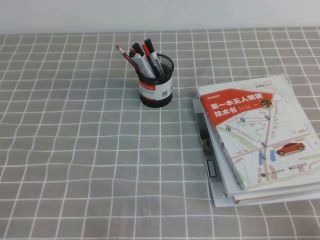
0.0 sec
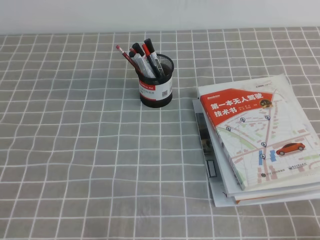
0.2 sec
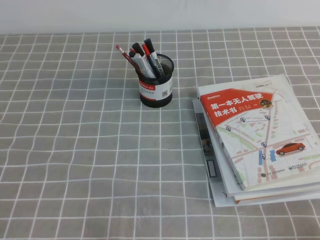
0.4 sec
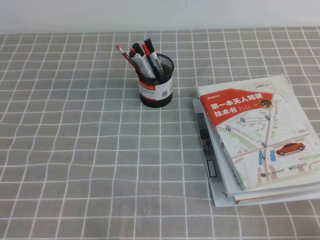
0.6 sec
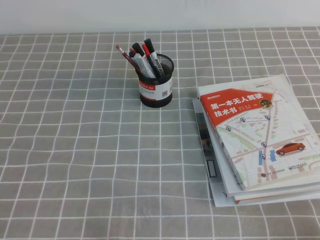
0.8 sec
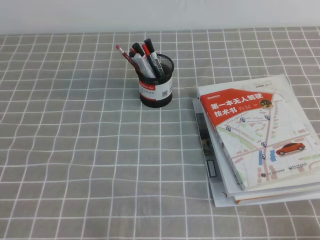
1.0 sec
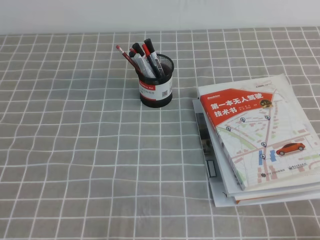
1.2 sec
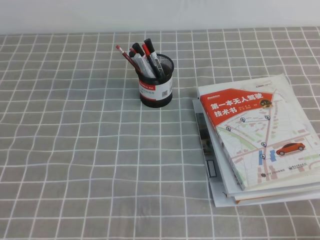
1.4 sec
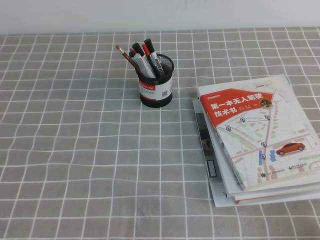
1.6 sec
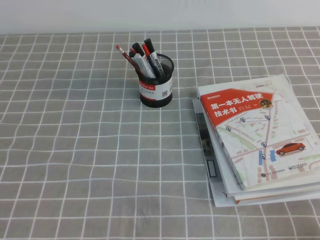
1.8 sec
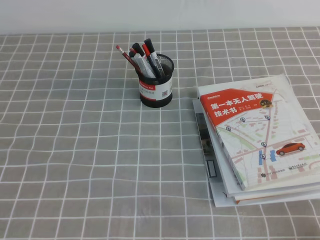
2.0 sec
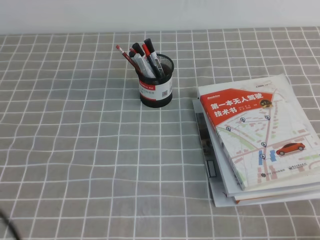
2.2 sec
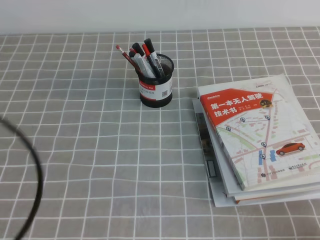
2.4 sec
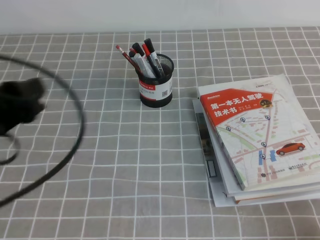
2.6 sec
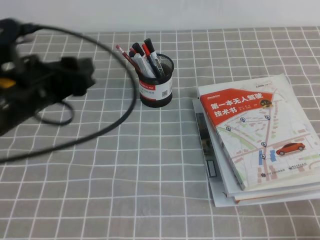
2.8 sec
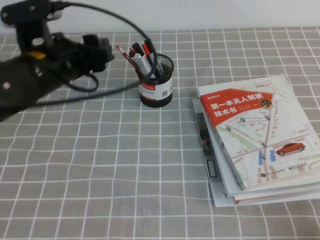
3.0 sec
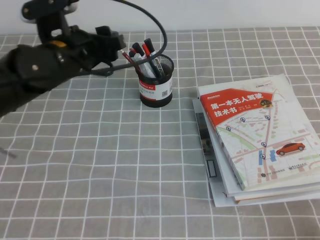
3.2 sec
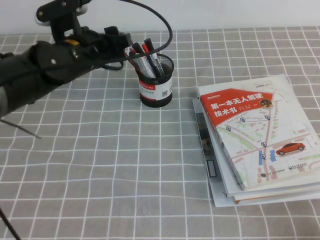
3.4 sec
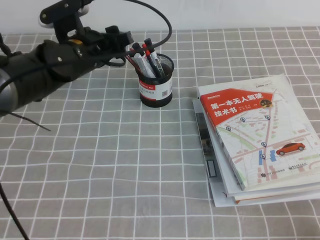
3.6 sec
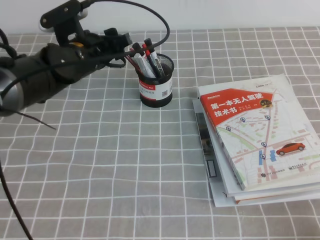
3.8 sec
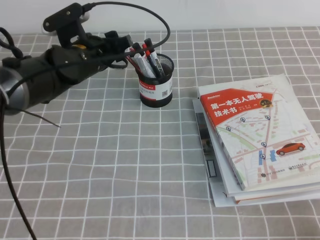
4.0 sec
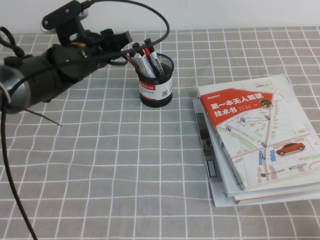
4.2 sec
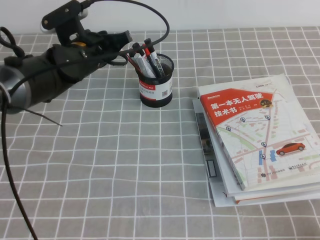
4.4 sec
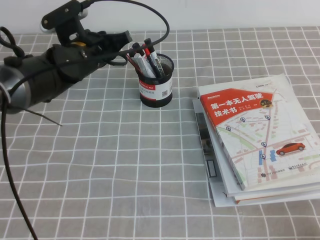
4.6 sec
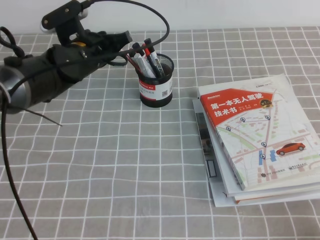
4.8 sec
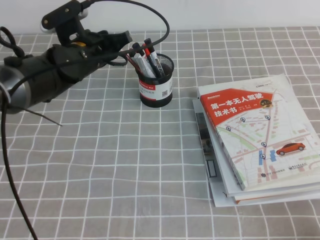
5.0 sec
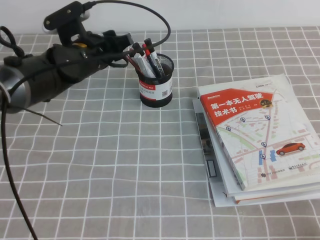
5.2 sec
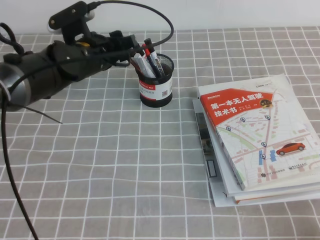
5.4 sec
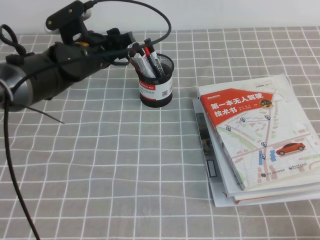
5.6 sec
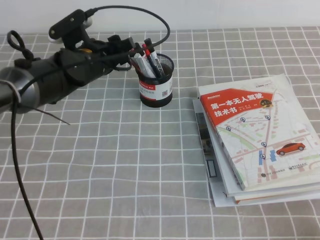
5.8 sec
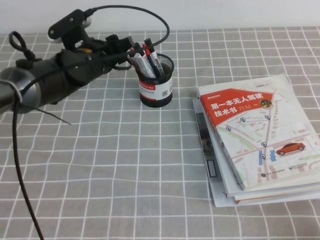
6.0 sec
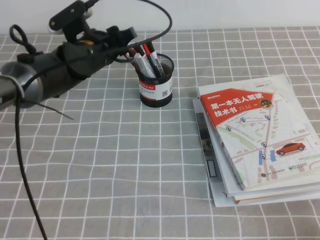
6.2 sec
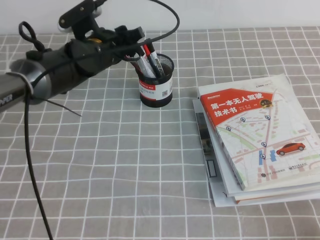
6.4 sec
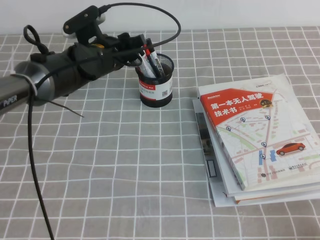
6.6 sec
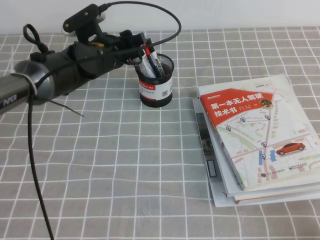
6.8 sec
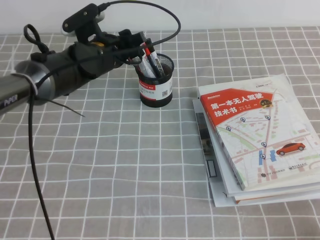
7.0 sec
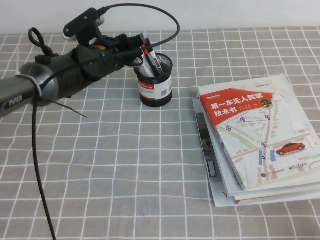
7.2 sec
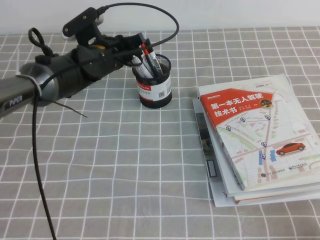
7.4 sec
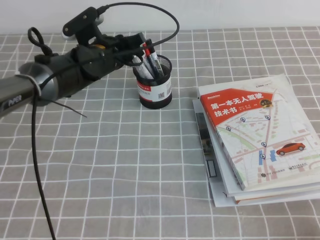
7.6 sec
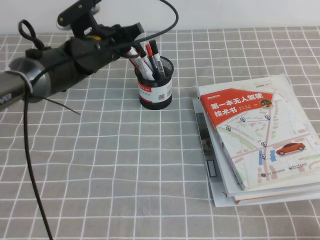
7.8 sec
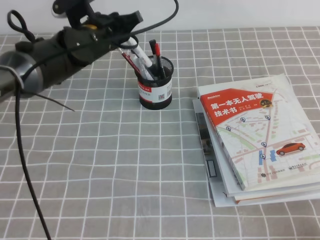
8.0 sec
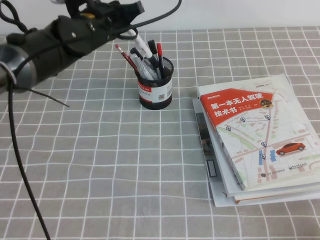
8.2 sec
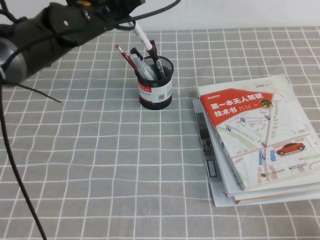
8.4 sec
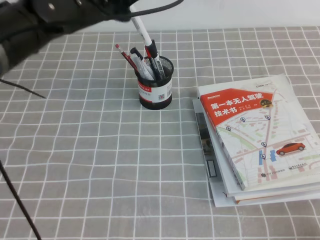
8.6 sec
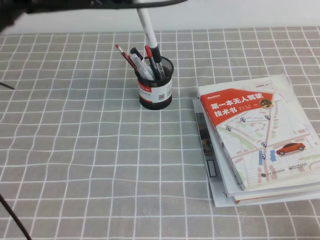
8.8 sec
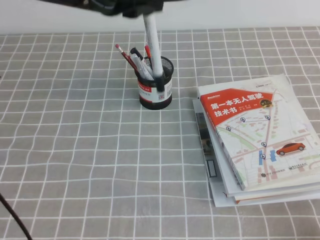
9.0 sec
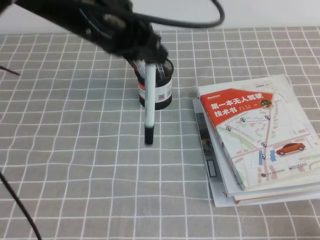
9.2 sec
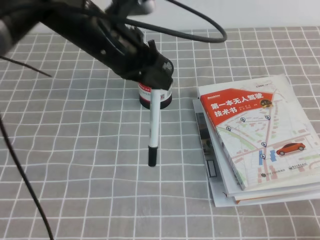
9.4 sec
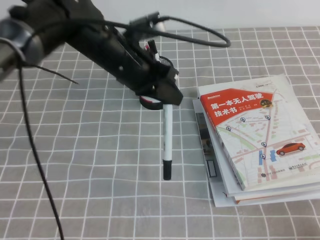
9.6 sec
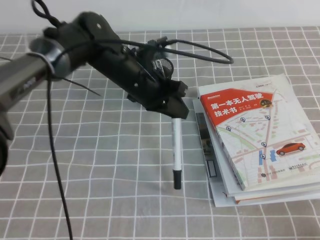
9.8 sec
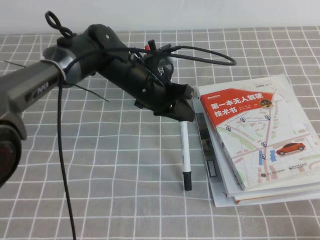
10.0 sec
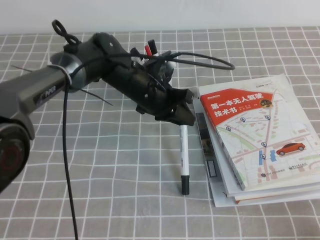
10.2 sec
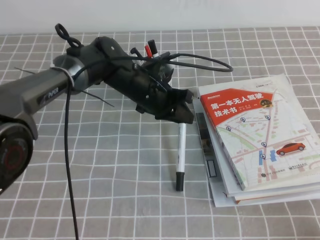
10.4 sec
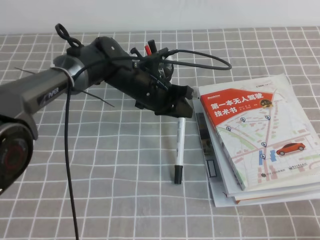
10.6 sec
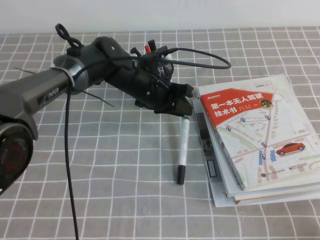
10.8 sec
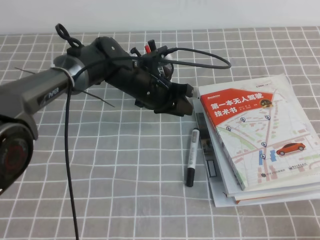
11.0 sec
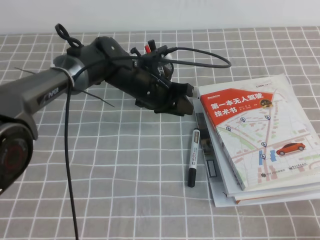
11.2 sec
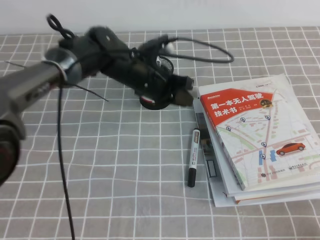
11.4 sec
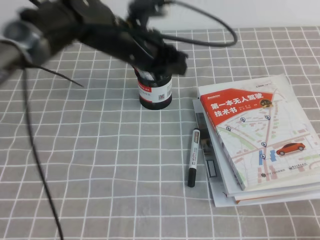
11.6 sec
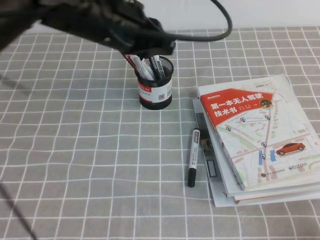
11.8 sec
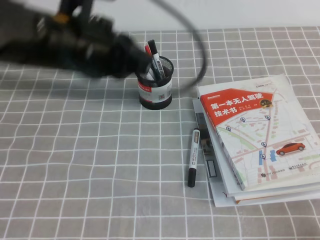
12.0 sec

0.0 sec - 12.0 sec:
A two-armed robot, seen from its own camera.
1.6 sec - 3.0 sec: The left gripper is displaced forward, upward and to the right by roughly 30 cm, and opens.
3.0 sec - 4.4 sec: The left gripper moves forward and downward, approximately 10 cm, and closes its fingers.
4.4 sec - 6.0 sec: The left gripper opens.
6.0 sec - 7.6 sec: The left gripper closes up.
7.6 sec - 9.0 sec: The left gripper moves upward and backward, approximately 20 cm.
9.0 sec - 10.4 sec: The left gripper heads downward, covering approximately 20 cm.
10.4 sec - 12.0 sec: The left gripper travels upward, backward and to the left by roughly 25 cm.

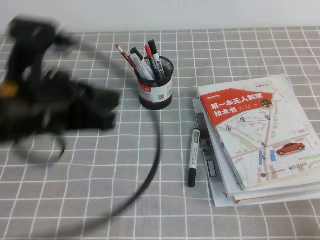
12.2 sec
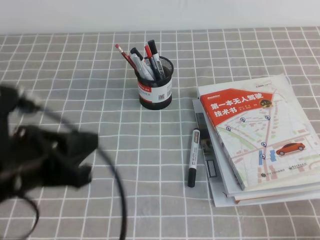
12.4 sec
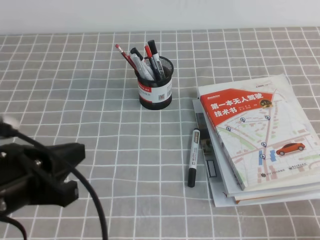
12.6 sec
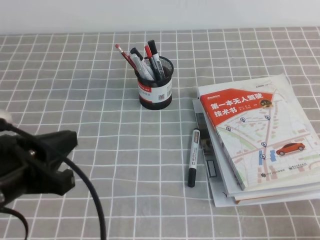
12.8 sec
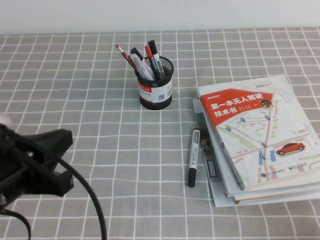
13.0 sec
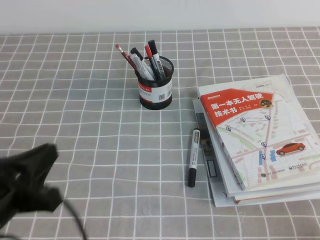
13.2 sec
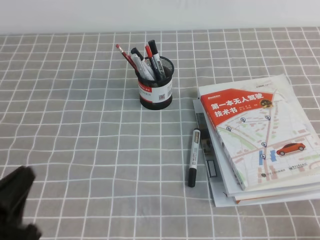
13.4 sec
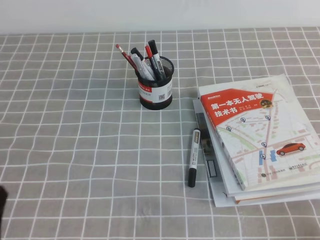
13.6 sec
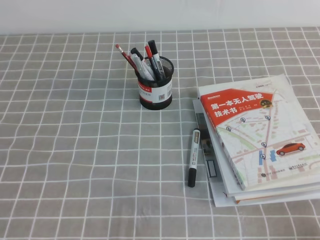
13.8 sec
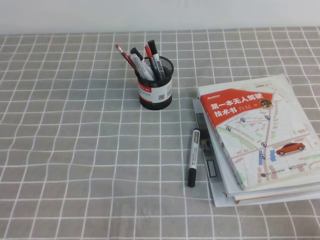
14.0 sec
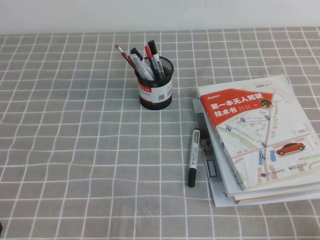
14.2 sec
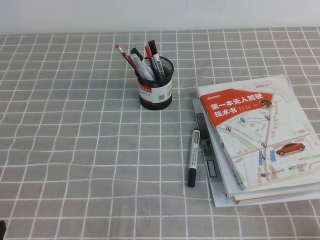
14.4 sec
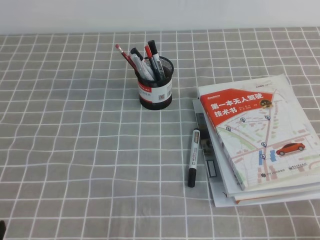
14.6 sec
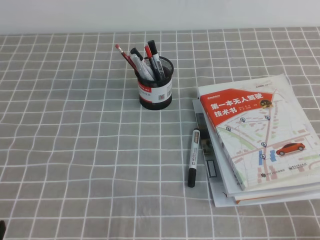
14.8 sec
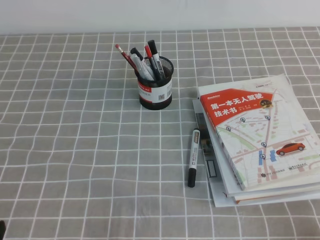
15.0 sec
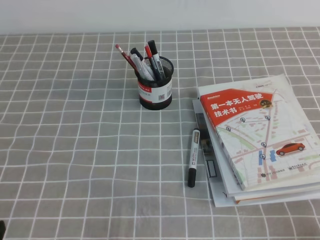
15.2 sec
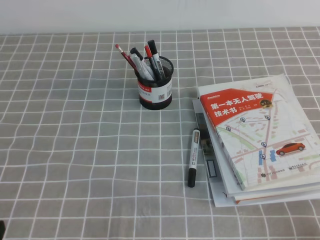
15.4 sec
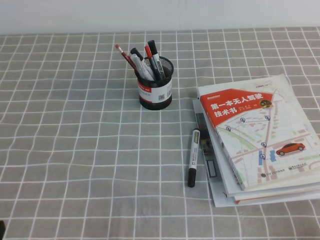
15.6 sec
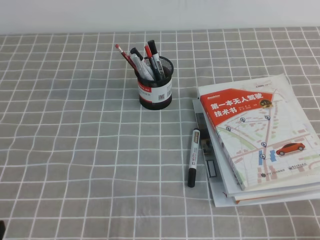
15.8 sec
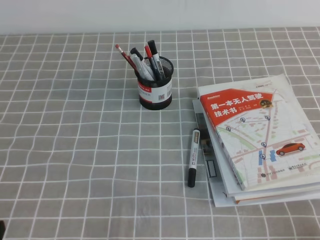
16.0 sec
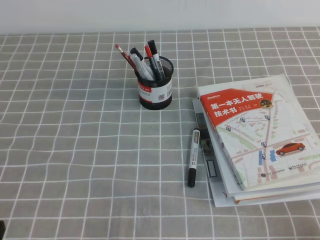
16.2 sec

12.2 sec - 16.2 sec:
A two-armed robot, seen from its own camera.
Step, 12.2 sec - 16.2 sec: Pick up the pen from the pen holder.
12.2 sec - 13.6 sec: The left gripper goes some 25 cm downward, backward and to the left.
13.6 sec - 14.8 sec: The left gripper changes place by roughly 5 cm.
14.8 sec - 16.2 sec: Neither gripper changes place.

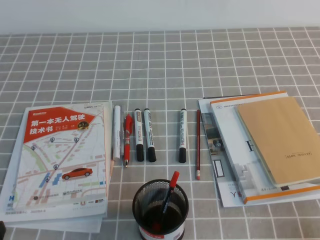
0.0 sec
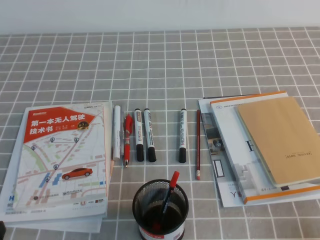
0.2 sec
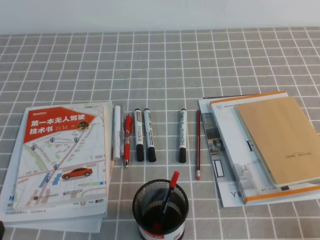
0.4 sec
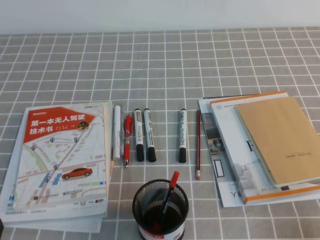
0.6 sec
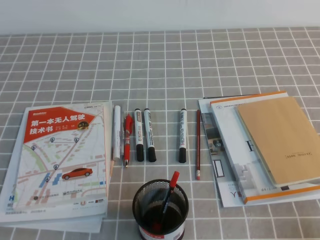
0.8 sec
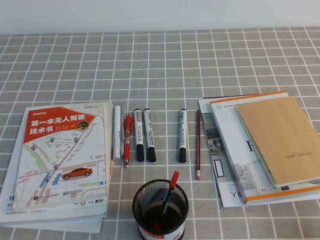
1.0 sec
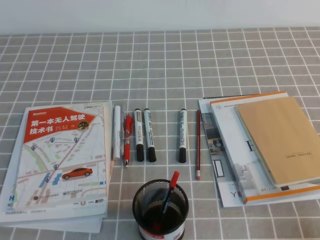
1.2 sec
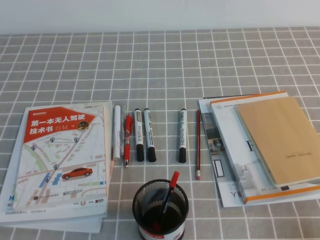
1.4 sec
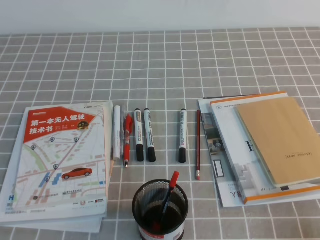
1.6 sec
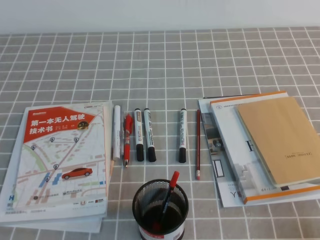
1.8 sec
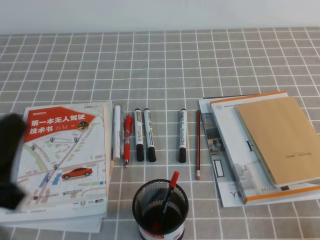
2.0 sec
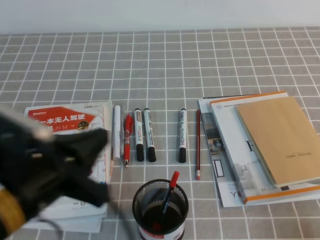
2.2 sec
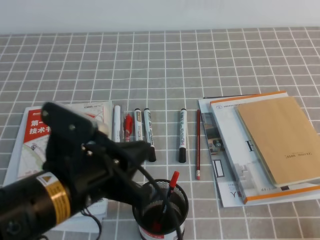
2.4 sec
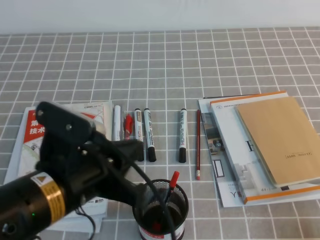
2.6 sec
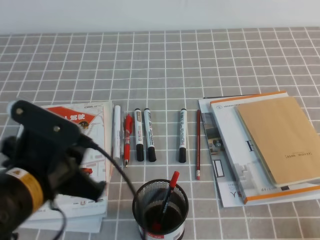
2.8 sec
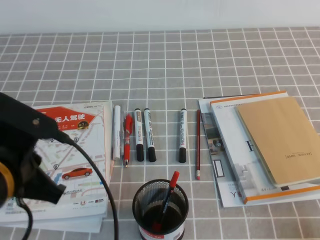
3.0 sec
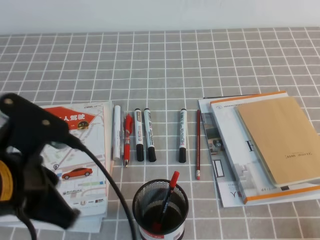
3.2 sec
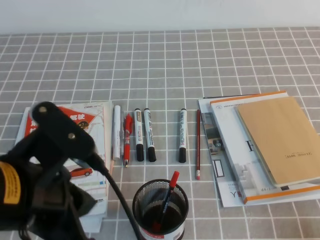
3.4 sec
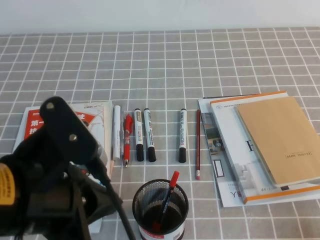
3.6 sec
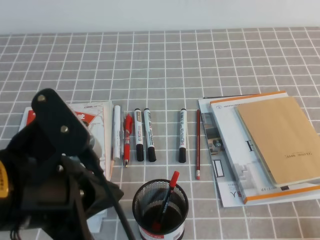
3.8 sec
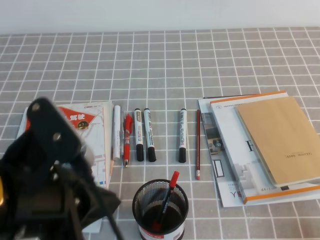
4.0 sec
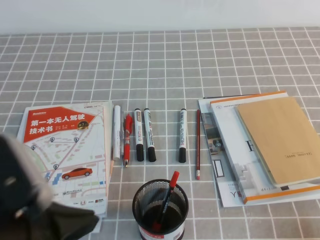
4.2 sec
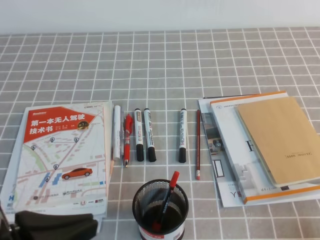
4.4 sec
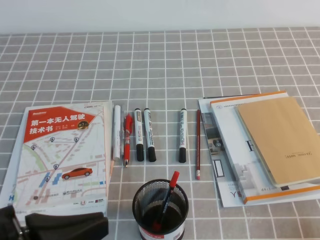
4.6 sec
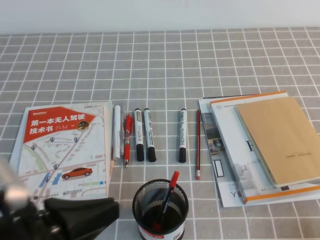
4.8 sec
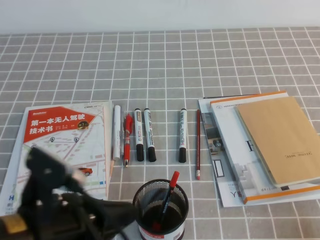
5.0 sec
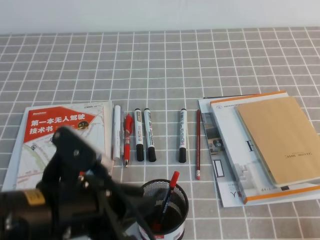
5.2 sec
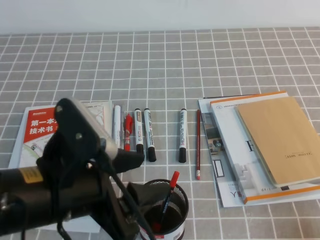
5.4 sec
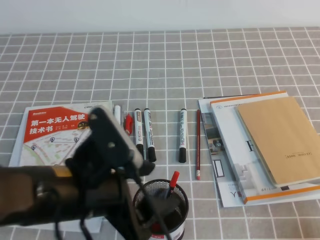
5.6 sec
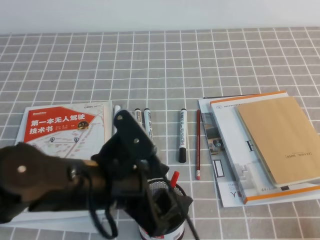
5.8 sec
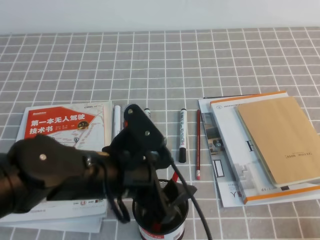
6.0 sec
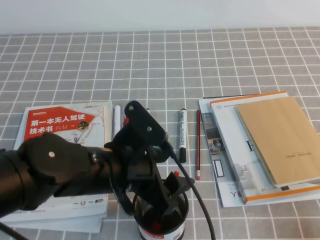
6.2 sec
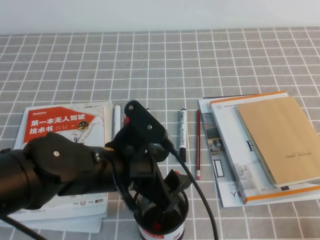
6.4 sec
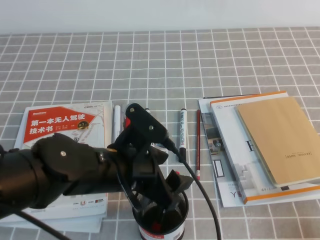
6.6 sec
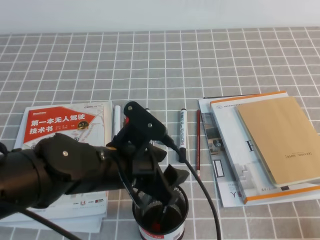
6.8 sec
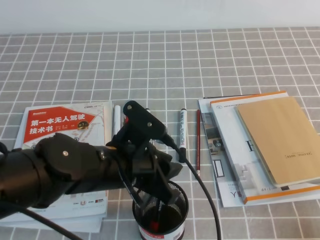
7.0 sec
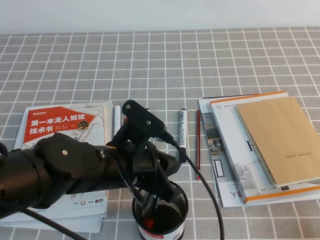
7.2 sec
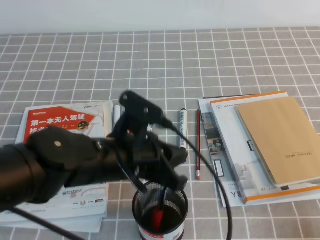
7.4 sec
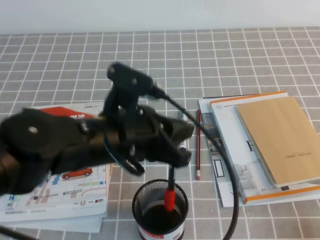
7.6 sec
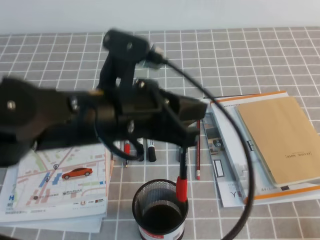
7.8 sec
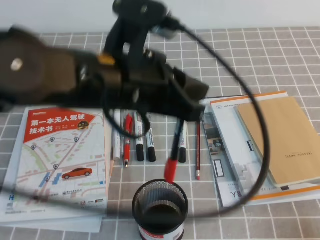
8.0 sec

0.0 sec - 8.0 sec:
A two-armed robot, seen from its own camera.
1.6 sec - 3.2 sec: The left gripper goes roughly 15 cm to the right, forward and upward.
3.2 sec - 4.8 sec: The left gripper moves backward, roughly 5 cm.
4.8 sec - 6.4 sec: The left gripper shifts roughly 15 cm forward, to the right and downward, and opens.
6.4 sec - 8.0 sec: The left gripper is displaced upward by approximately 15 cm, and closes.
